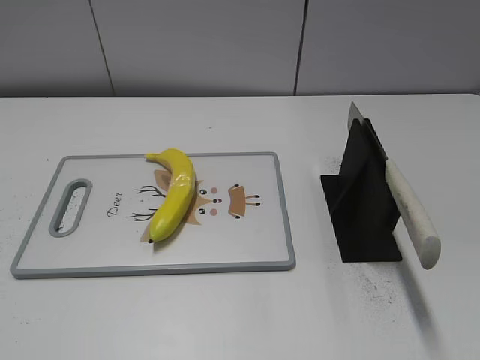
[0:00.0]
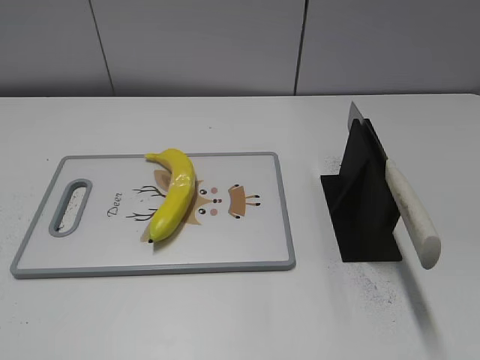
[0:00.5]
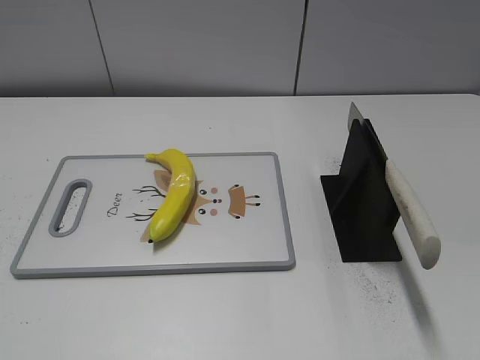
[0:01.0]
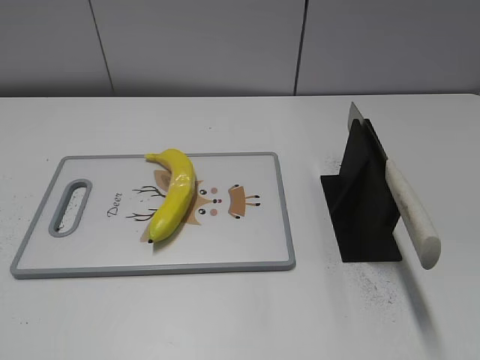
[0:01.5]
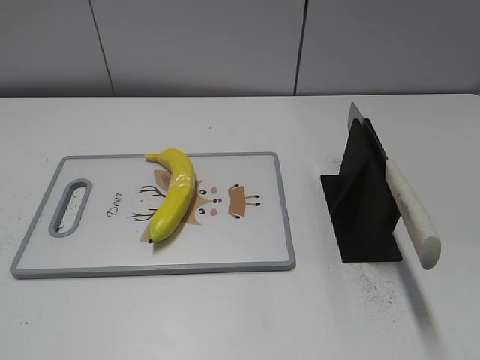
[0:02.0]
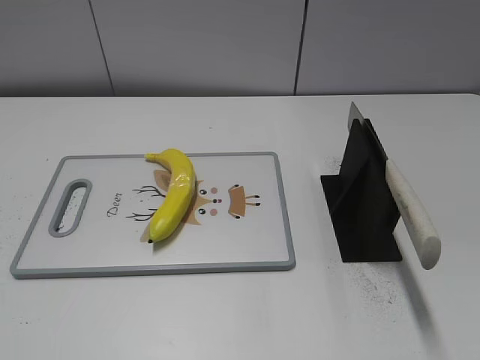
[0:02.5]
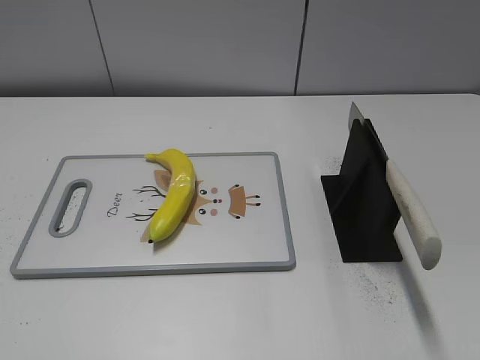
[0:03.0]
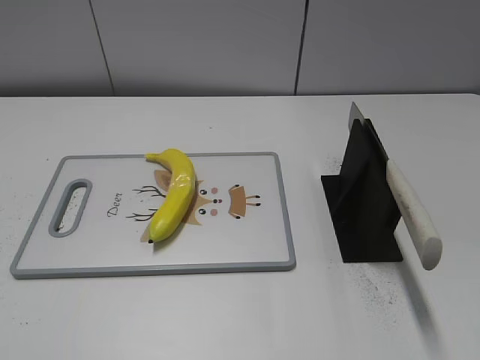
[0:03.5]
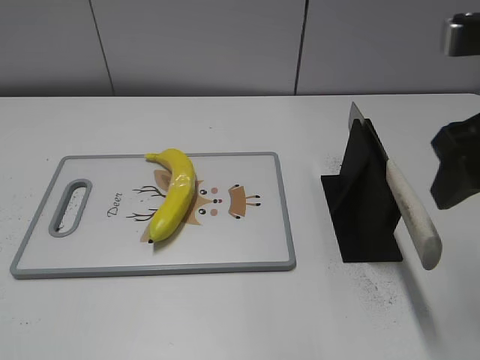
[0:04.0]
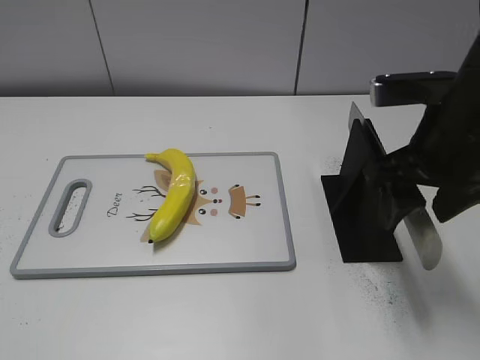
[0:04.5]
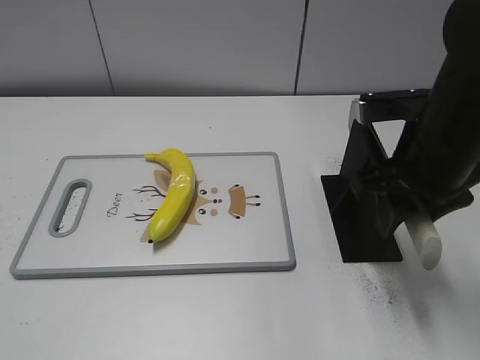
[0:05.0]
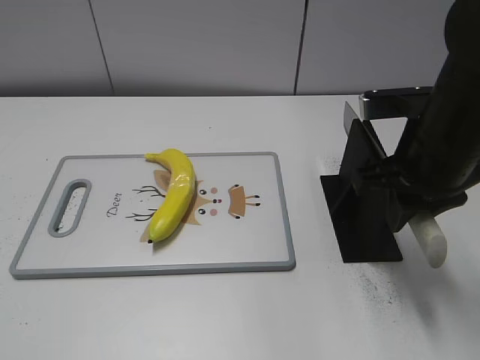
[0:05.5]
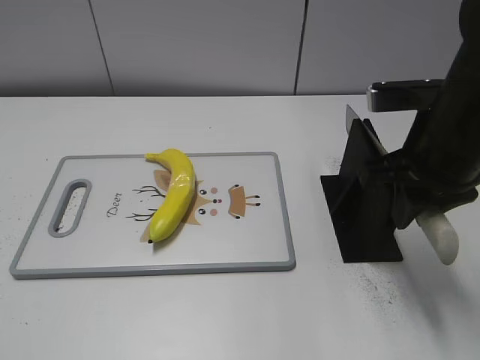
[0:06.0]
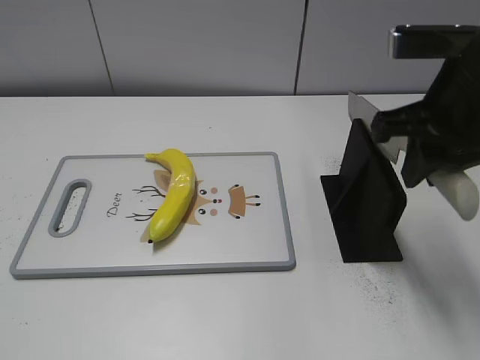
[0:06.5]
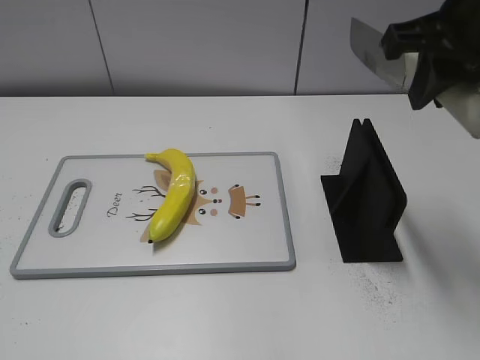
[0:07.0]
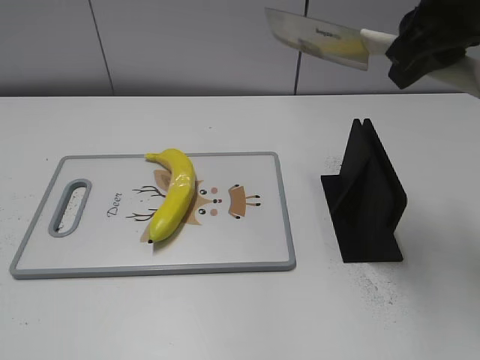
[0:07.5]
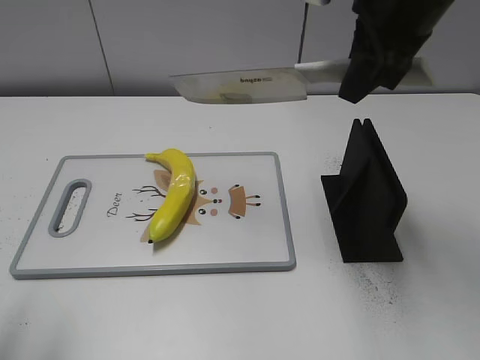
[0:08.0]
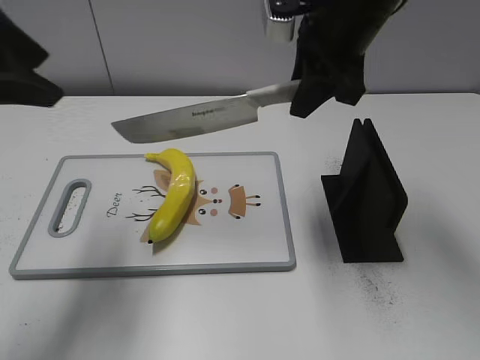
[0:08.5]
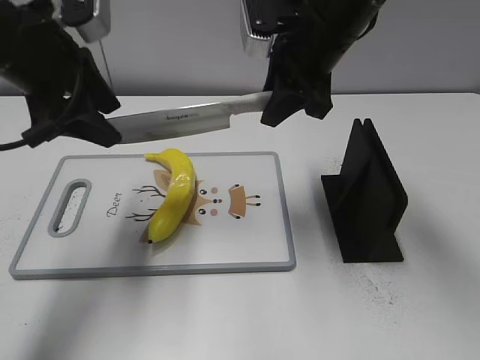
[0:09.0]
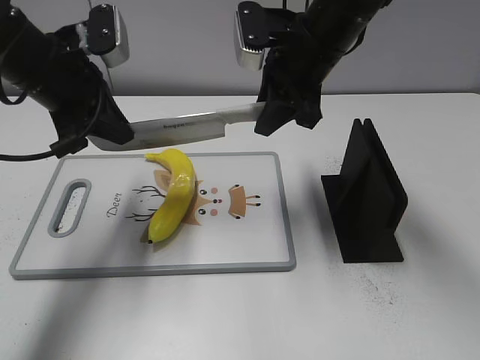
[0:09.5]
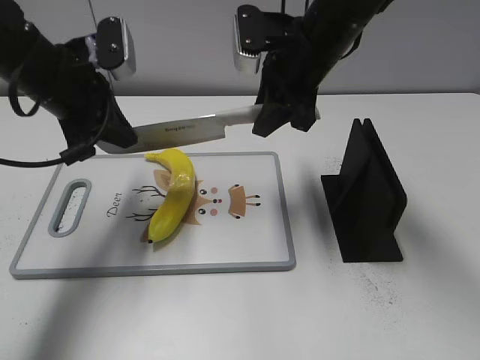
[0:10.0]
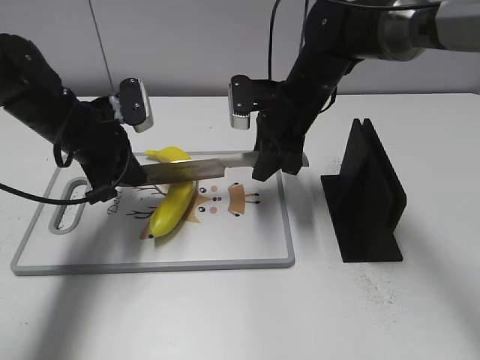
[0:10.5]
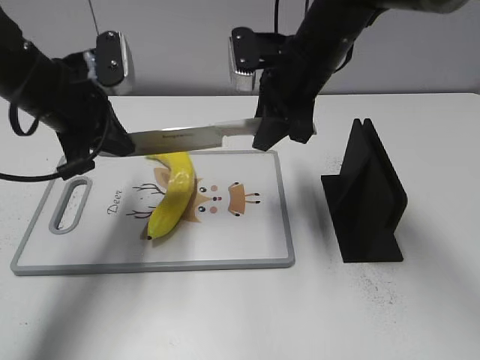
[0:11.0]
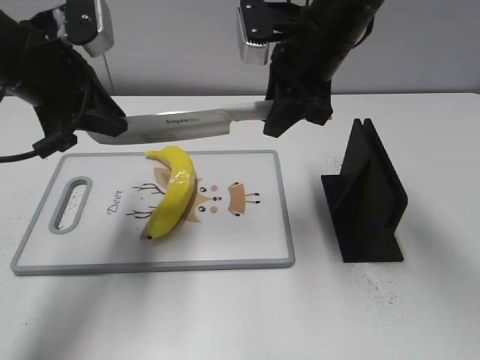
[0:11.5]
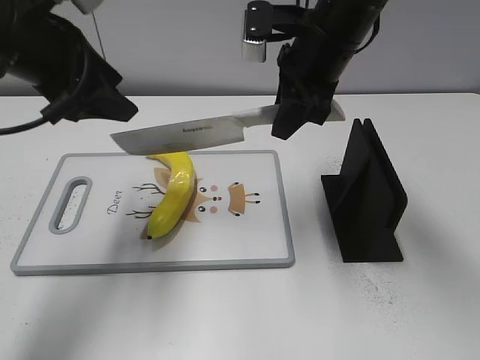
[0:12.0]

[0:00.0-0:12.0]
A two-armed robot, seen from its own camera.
Task of the whole recording: cut plastic banana.
Step, 0:00.0 to 0:06.5: Grab the knife handle with your right hand.
0:02.0 to 0:04.0: The right gripper travels forward and to the left by approximately 25 cm.
0:04.0 to 0:06.0: The right gripper goes roughly 10 cm downward and forward, and closes its fingers.
0:06.0 to 0:08.0: The left gripper goes some 10 cm forward. Meanwhile the right gripper heads upward and forward, covering approximately 10 cm.
0:08.0 to 0:10.0: The left gripper is displaced forward by about 25 cm, and closes up, while the right gripper heads downward, forward and to the left, covering approximately 15 cm.
0:10.0 to 0:12.0: The right gripper moves some 10 cm downward and comes back; the left gripper shifts about 5 cm upward, and opens.

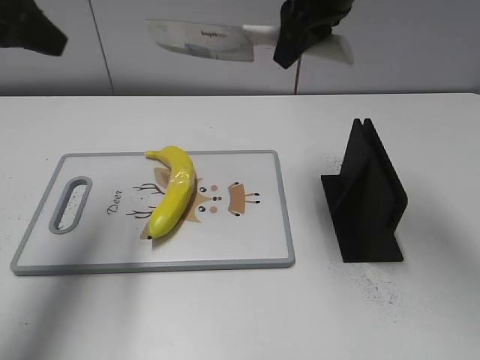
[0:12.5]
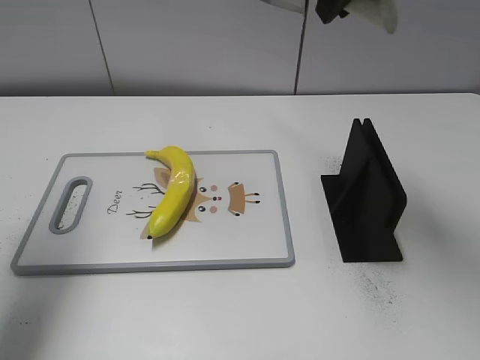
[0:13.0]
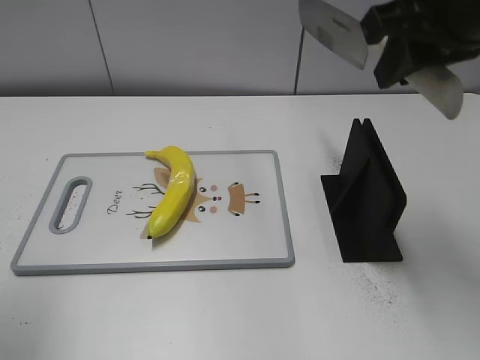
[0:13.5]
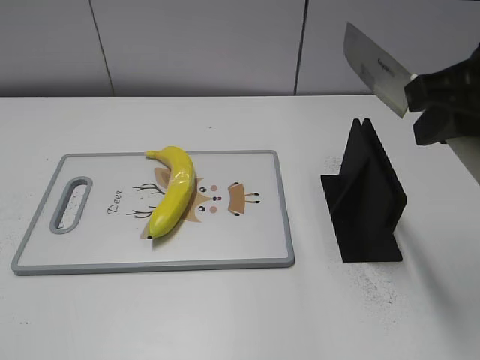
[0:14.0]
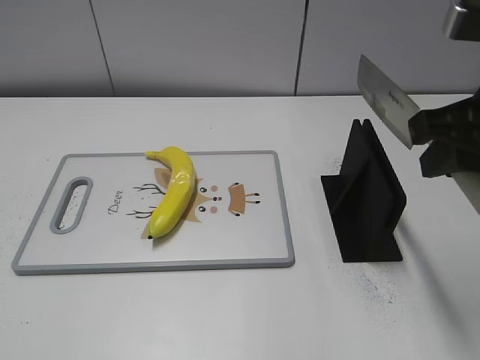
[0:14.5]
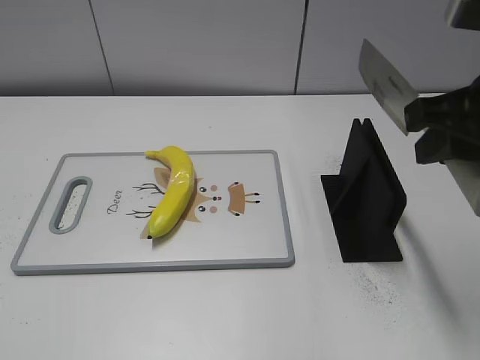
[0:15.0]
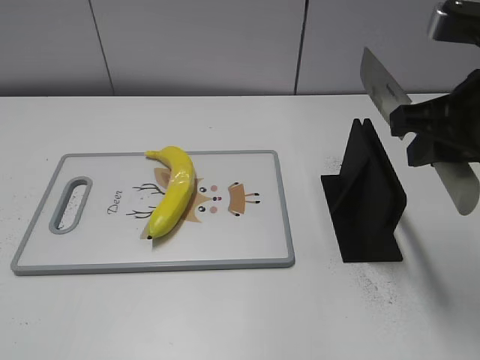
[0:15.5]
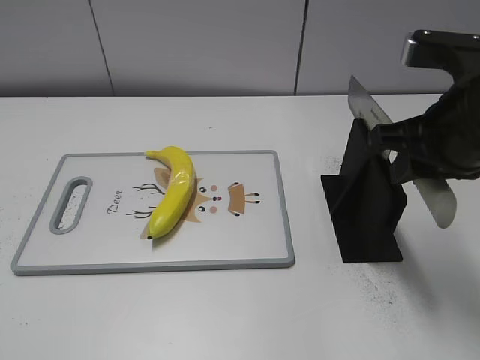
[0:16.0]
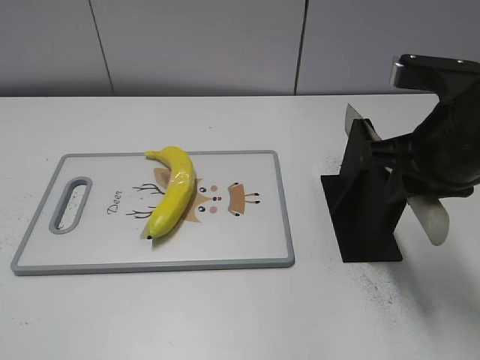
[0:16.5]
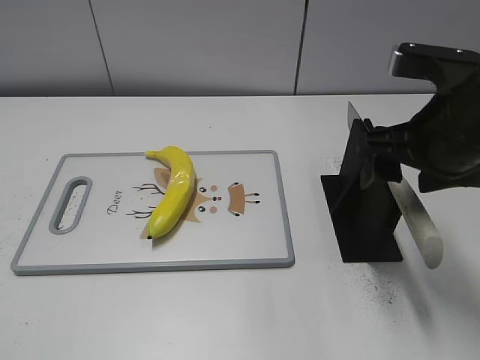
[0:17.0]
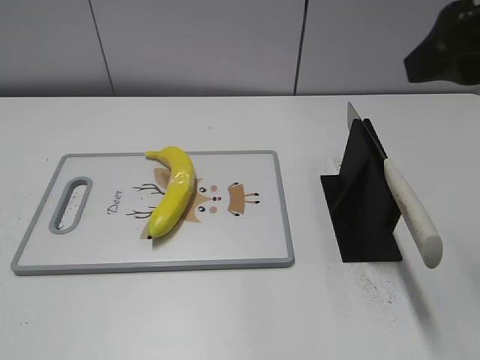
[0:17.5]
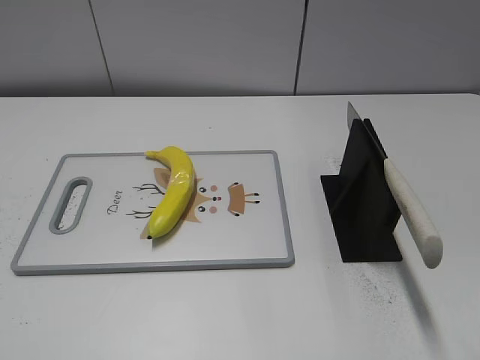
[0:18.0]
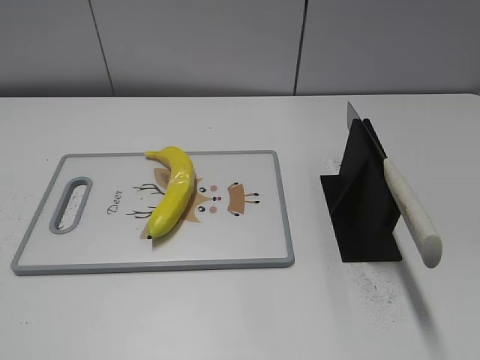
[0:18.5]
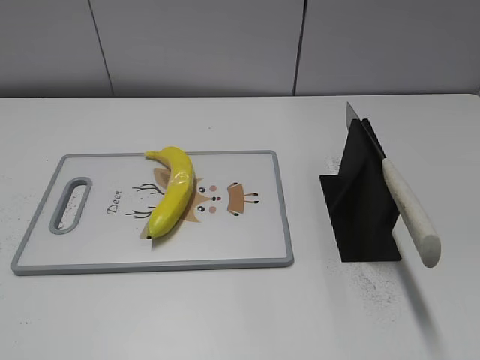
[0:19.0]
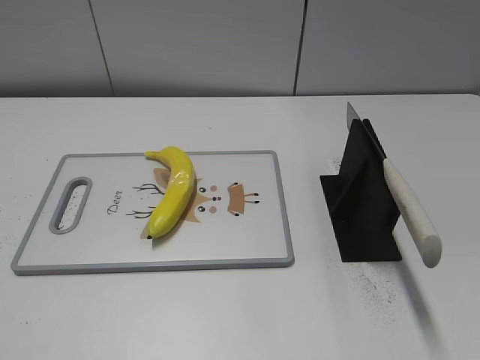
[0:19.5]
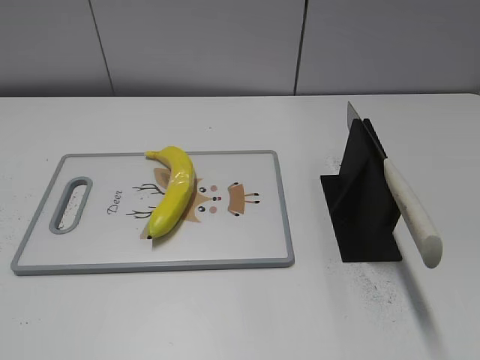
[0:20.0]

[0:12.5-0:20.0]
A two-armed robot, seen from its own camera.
Task of the whole recording: cut plastic banana.
Step, 0:12.5 to 0:13.0: Cut the banana with your right hand.
Step, 0:13.5 to 0:14.0: Lift the knife with your right hand.
Step, 0:14.5 to 0:20.0: Place the knife on the storage rack with your right hand.
0:12.5 to 0:14.5: The left gripper is displaced backward by approximately 30 cm. The right gripper goes some 20 cm backward and to the right.
0:14.5 to 0:16.5: The right gripper moves downward, about 5 cm.
0:16.5 to 0:18.0: The right gripper goes roughly 15 cm backward, upward and to the right, and opens.

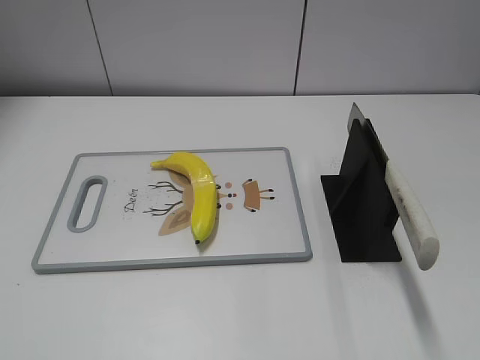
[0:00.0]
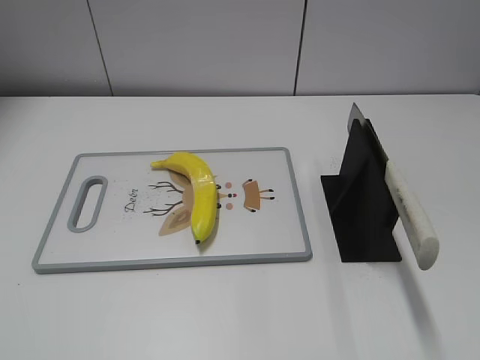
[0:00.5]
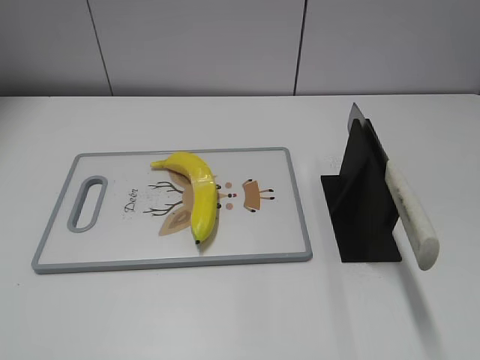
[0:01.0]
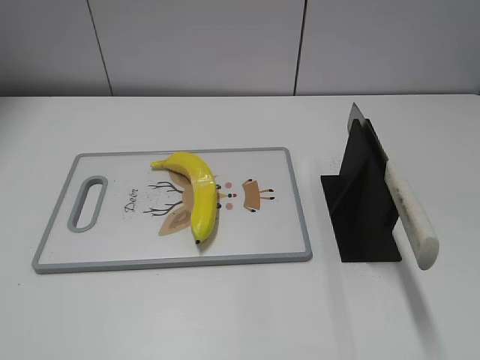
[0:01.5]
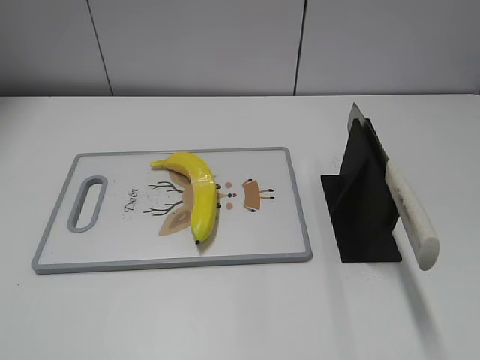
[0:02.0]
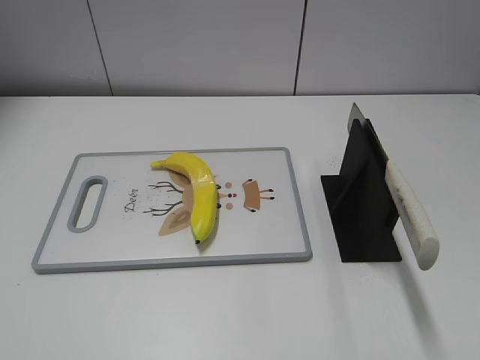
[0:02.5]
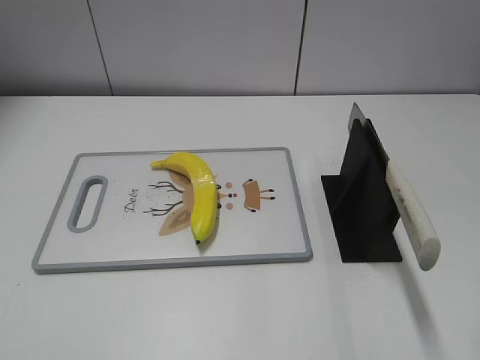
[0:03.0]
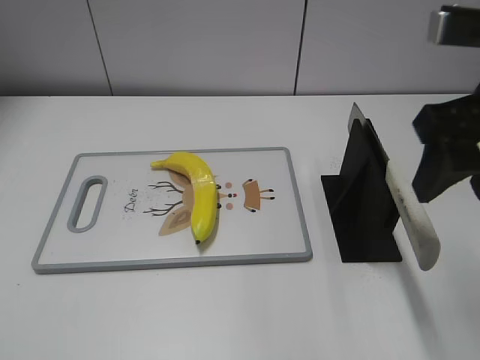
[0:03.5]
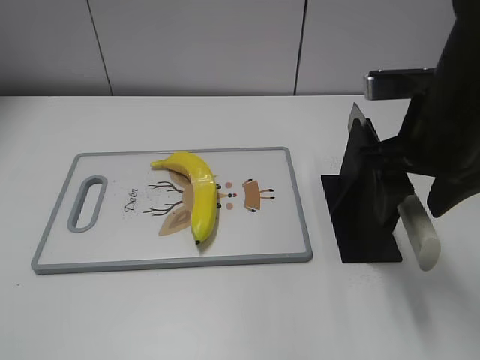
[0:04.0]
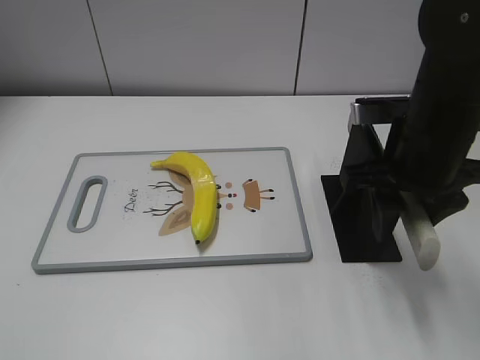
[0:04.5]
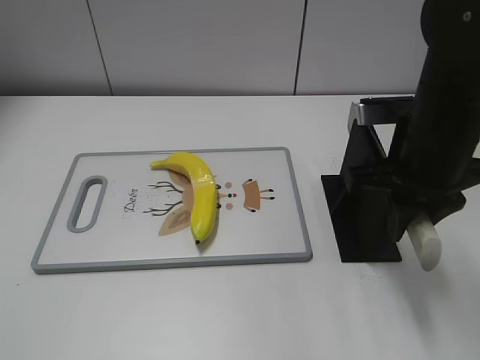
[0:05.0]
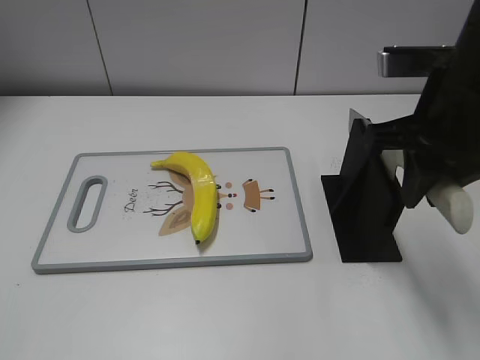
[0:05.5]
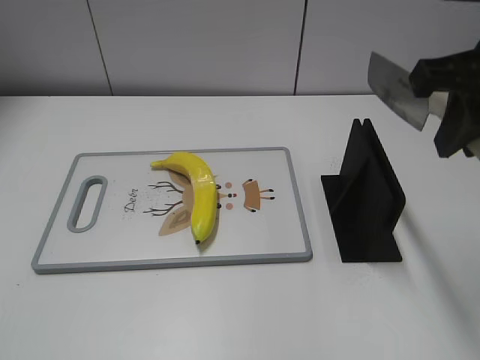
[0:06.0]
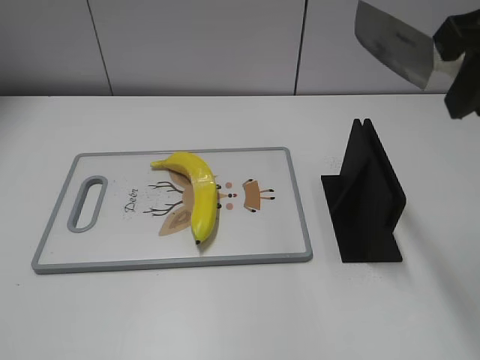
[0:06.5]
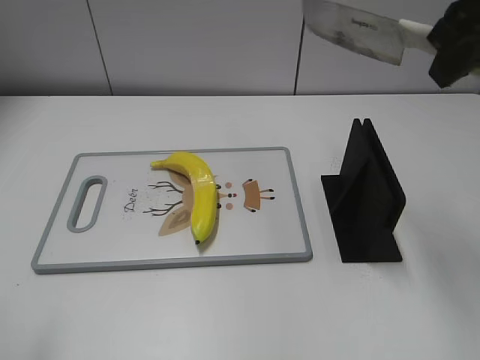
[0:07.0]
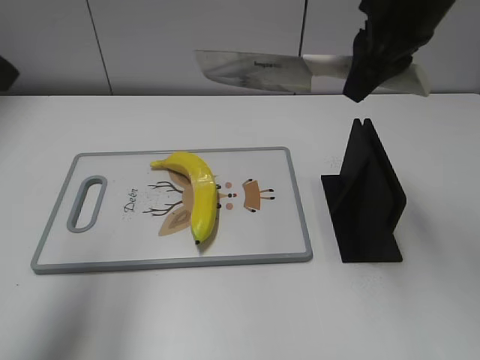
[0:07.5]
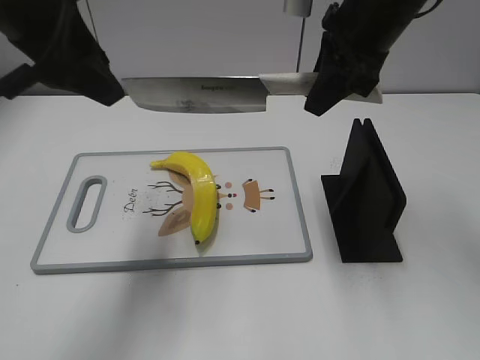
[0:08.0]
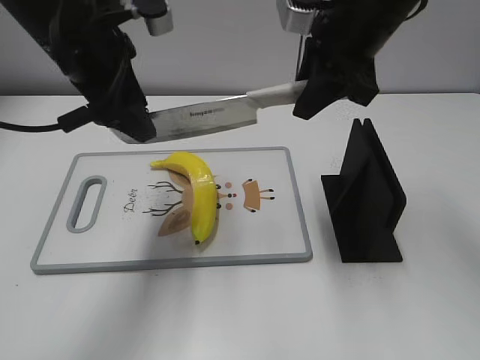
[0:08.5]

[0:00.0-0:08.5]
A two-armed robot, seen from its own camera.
Task of the whole recording: cut plastic banana.
Step, 0:00.0 to 0:05.5: Grab the knife handle with your right hand.
0:02.0 to 0:04.0: The right gripper goes some 30 cm forward and to the left.
0:04.0 to 0:06.5: The right gripper moves upward, about 10 cm, and closes up.
0:06.5 to 0:08.5: The right gripper goes about 15 cm forward, to the left and downward, while the left gripper moves forward and to the right, approximately 40 cm.
